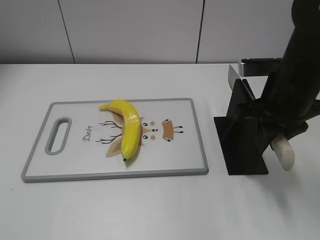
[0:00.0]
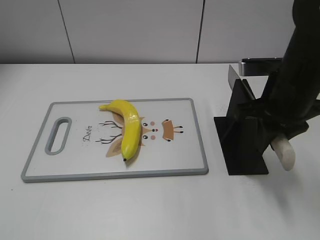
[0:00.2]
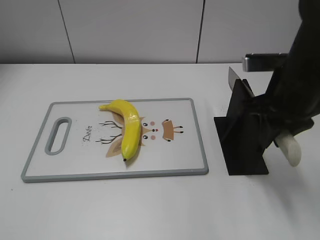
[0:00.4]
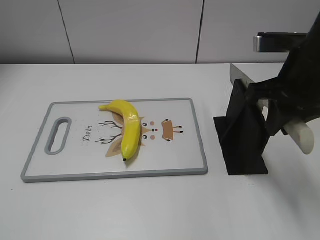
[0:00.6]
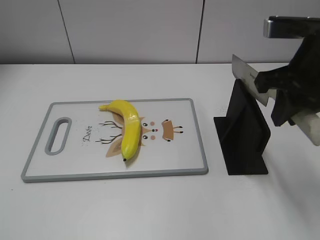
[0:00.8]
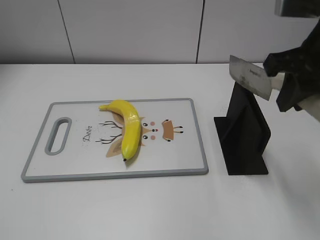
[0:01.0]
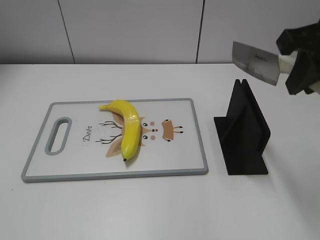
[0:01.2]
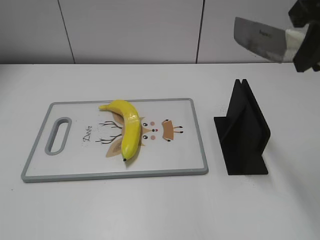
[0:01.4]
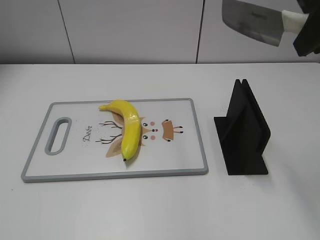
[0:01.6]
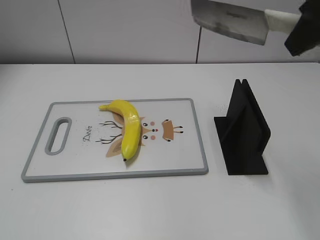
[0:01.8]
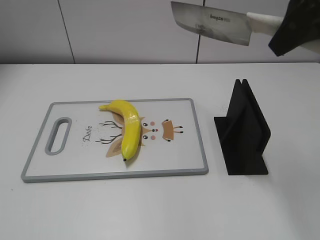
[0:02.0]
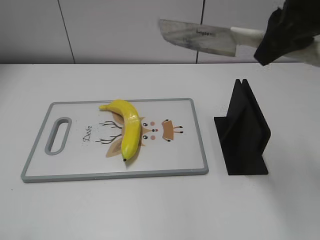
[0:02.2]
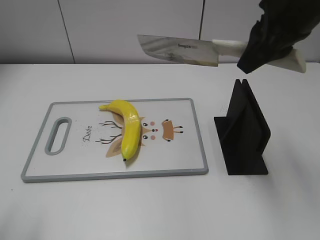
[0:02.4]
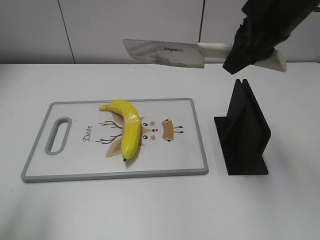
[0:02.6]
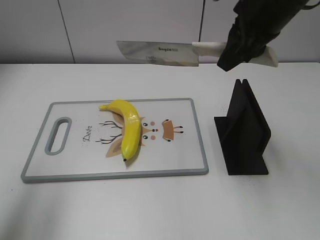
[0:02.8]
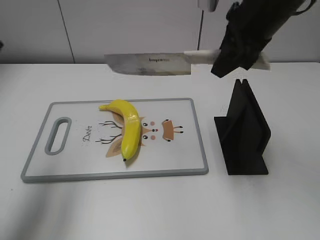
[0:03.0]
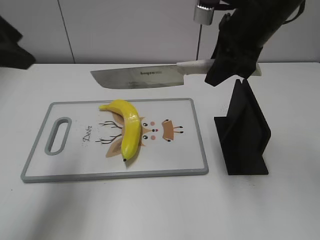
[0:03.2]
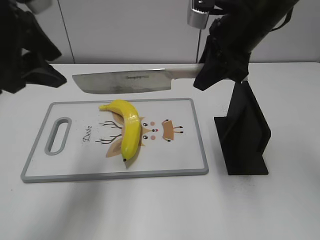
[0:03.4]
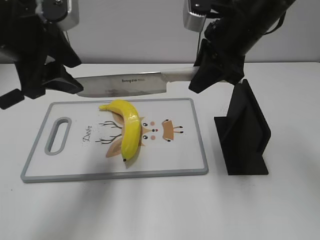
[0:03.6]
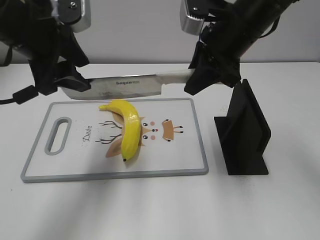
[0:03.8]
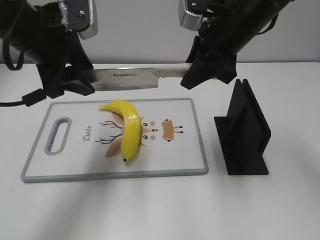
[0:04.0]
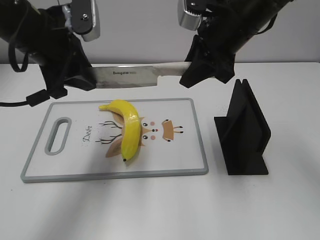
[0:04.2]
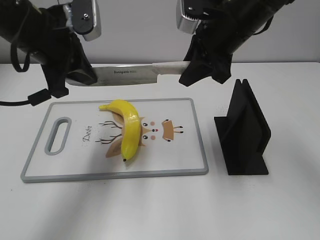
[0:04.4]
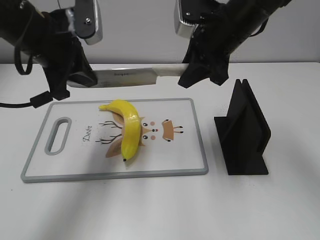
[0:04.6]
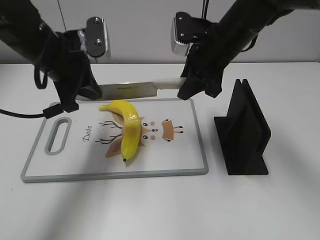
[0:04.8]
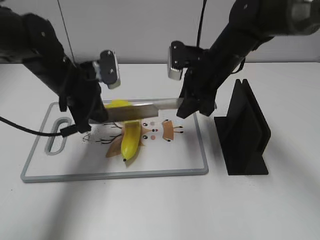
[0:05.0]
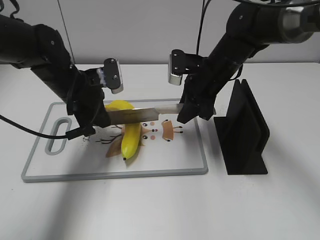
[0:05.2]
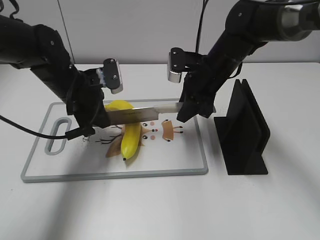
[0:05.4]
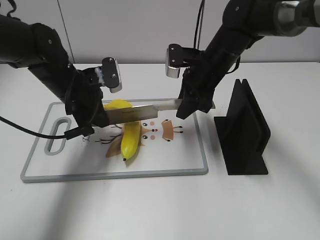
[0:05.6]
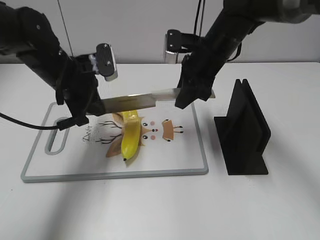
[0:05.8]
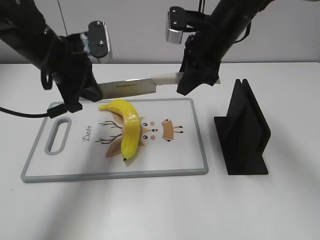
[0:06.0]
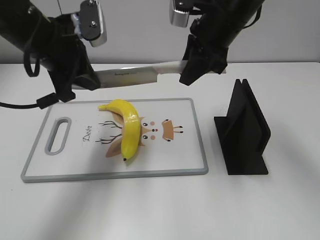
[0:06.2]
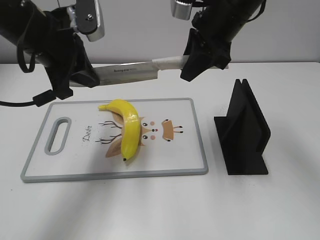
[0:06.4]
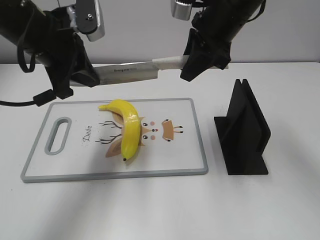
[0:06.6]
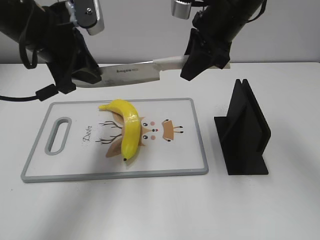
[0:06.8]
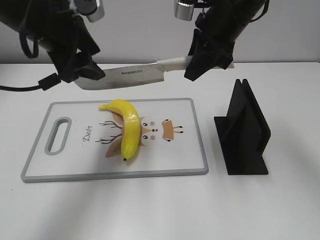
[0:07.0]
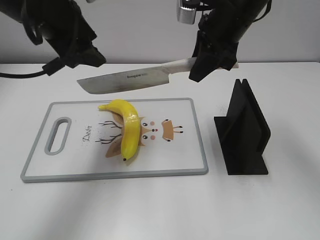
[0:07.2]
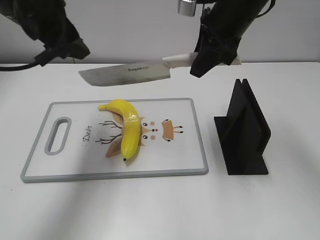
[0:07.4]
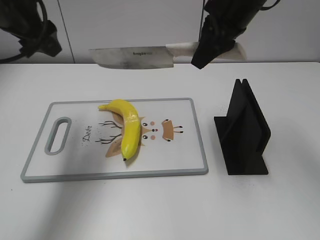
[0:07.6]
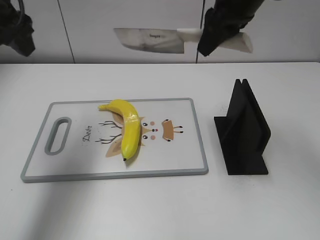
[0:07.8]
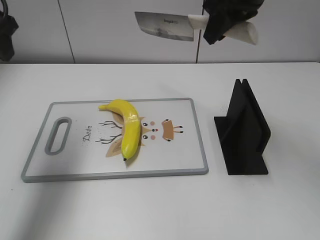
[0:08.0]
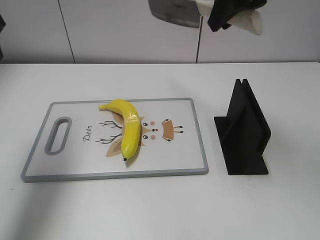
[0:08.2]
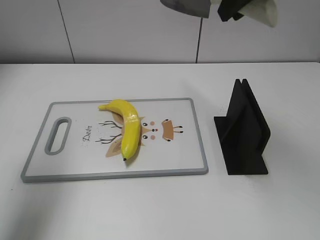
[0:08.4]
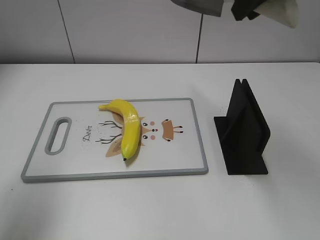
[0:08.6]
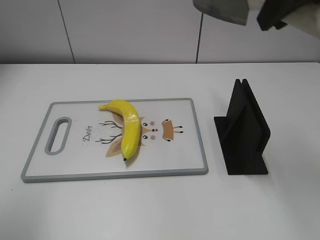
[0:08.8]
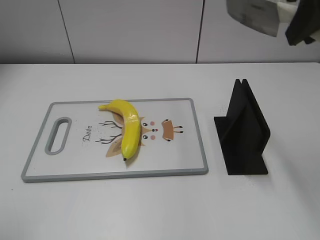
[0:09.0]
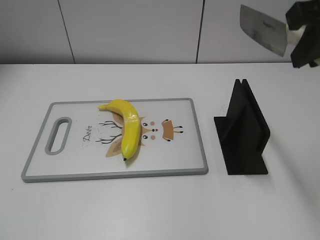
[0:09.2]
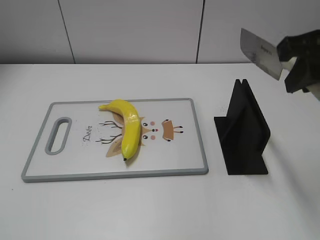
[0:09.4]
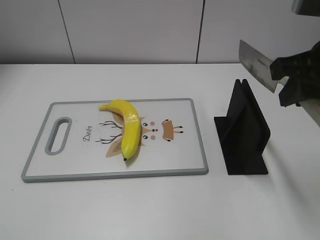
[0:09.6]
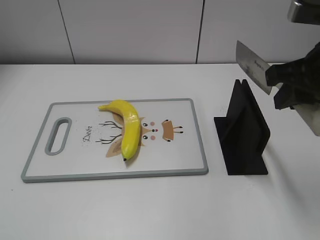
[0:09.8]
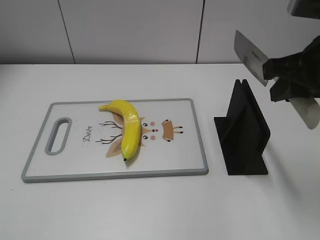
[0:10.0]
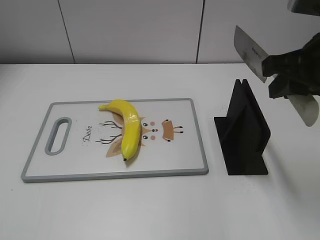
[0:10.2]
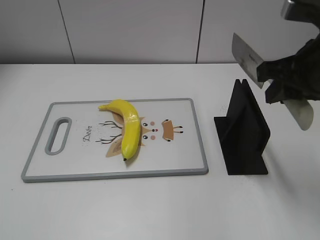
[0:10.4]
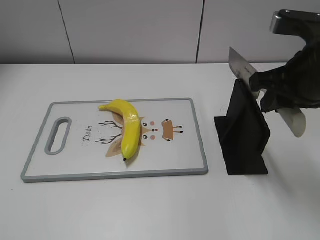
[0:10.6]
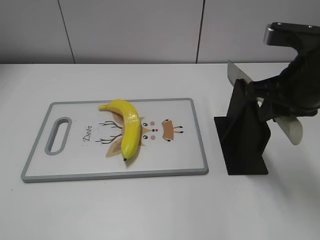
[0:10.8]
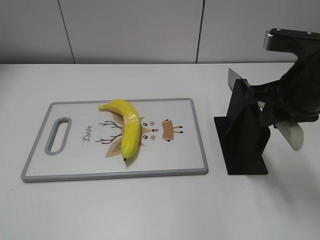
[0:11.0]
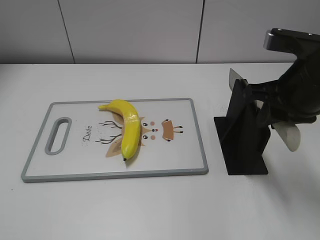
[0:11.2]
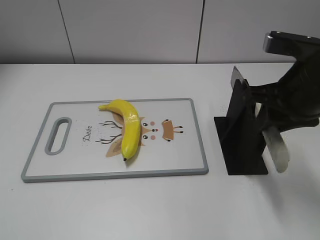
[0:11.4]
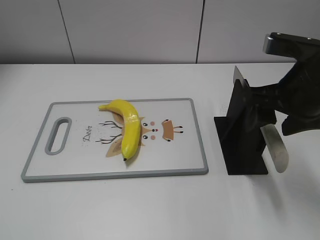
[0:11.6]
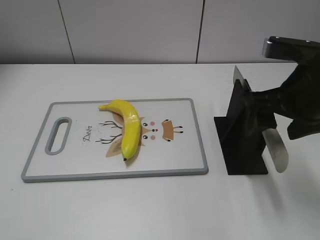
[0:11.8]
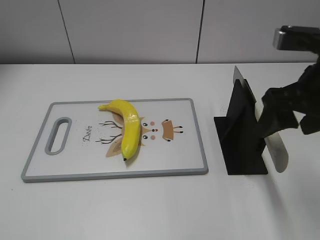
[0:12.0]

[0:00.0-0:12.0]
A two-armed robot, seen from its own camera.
Task of the whole recording: cut plastic banana.
Step, 0:01.6 to 0:06.6: Lift the knife with your right hand.
Step, 0:06.8 to 0:07.8: Cut the banana with your left hand.
Step, 0:08.0 to 0:09.2: Lift the knife with your right hand.
0:00.0 to 0:01.6: The right gripper is displaced upward by roughly 15 cm.
0:01.6 to 0:03.0: The right gripper heads forward, downward and to the left, covering some 15 cm, while the left gripper shifts roughly 25 cm forward.
0:03.0 to 0:04.4: The left gripper travels to the right, forward and downward by some 15 cm, and closes up; the right gripper changes place by some 5 cm.
0:04.4 to 0:06.0: The left gripper shifts about 5 cm downward. Meanwhile the right gripper moves approximately 10 cm downward and comes back.
0:06.0 to 0:07.6: Both grippers move upward, approximately 10 cm. The left gripper opens.
0:07.6 to 0:09.0: The right gripper shifts approximately 15 cm backward, upward and to the right; the left gripper travels backward and to the left by roughly 25 cm.
0:09.0 to 0:10.4: The right gripper moves downward, some 10 cm.
0:10.4 to 0:12.0: The right gripper opens up.

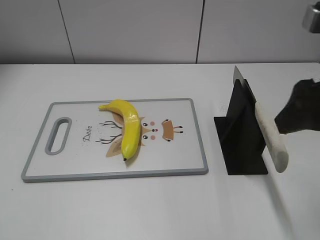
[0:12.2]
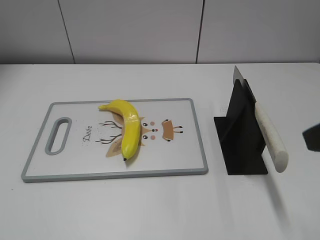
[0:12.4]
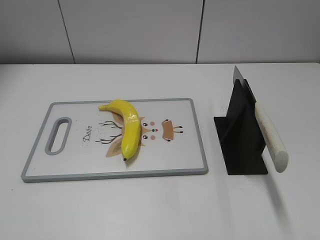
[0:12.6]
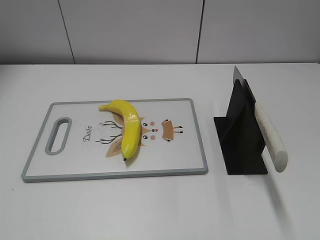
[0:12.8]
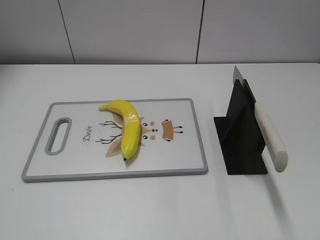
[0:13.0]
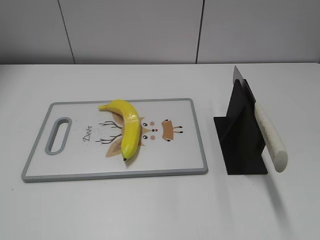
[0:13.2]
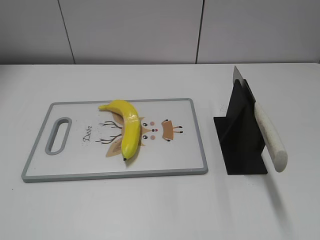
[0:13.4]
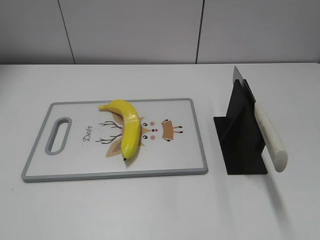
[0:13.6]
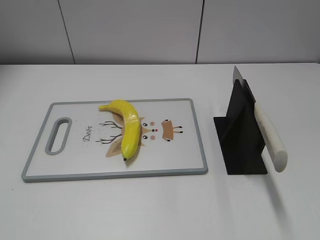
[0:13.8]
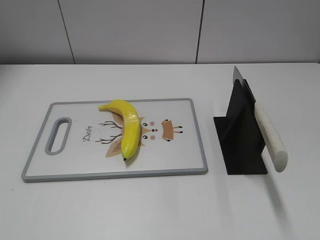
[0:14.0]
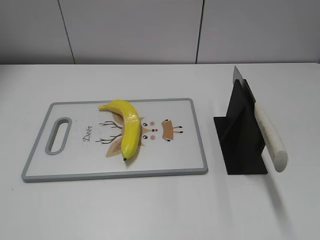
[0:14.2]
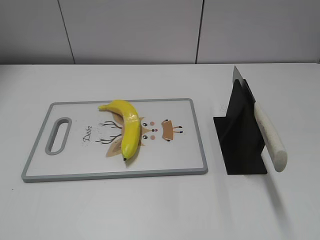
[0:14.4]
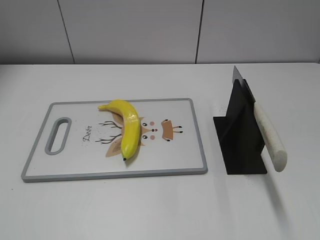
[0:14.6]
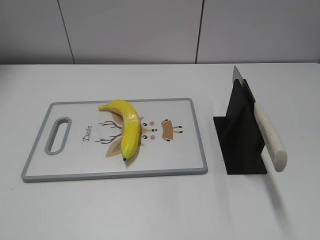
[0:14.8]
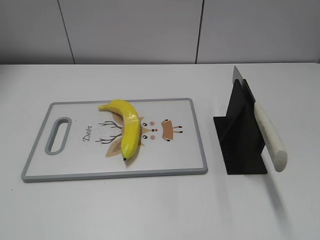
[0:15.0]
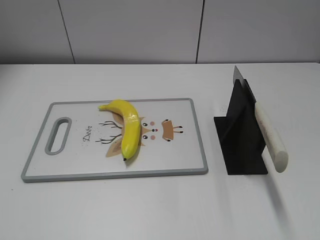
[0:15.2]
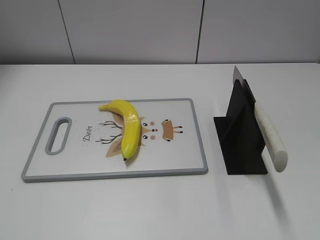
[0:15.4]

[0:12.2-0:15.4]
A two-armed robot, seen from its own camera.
Task of the whole recording: cut plastic banana.
Step, 0:12.2 to 0:15.4: Place the knife on the storage rack with your right hand.
0:12.2 to 0:13.8: The right gripper heads backward and to the right, covering about 20 cm.
